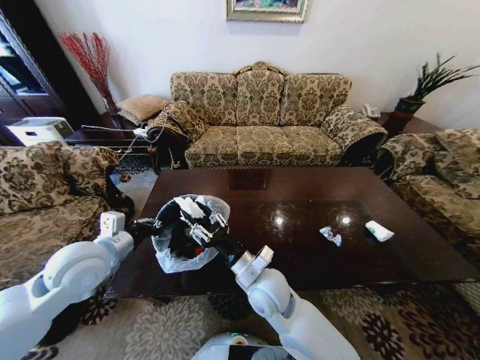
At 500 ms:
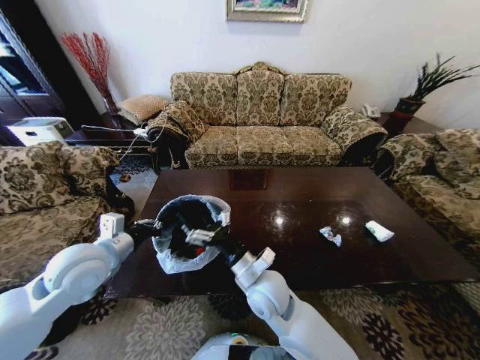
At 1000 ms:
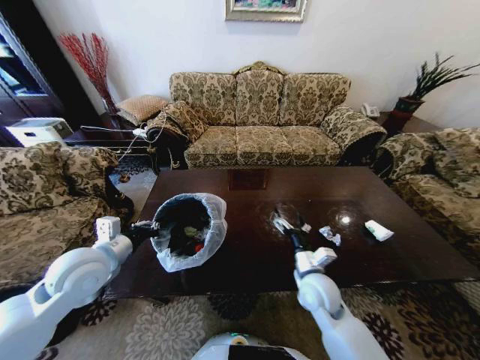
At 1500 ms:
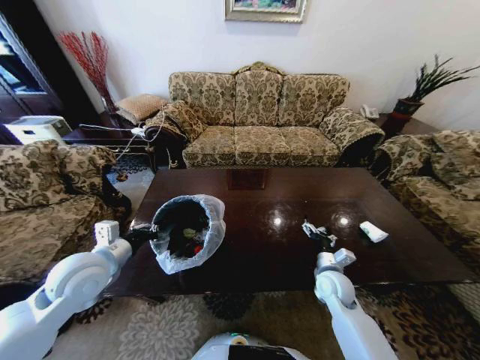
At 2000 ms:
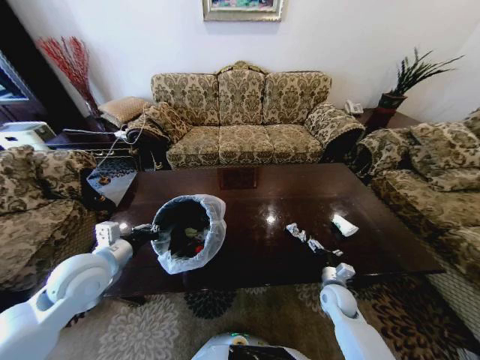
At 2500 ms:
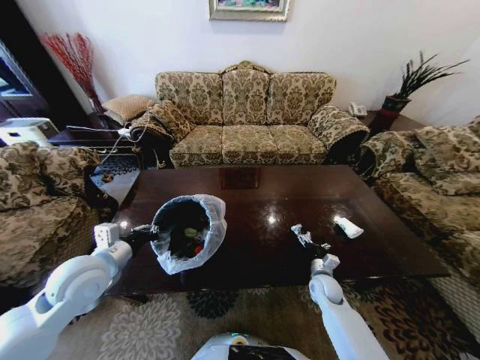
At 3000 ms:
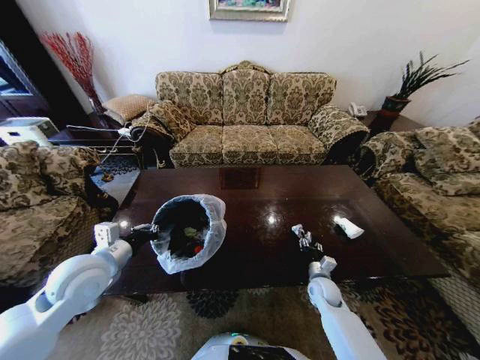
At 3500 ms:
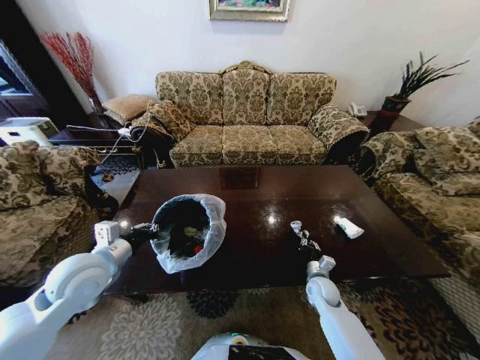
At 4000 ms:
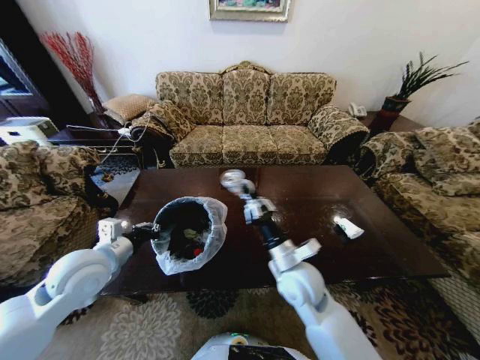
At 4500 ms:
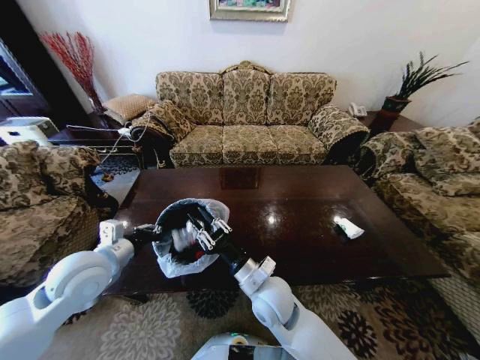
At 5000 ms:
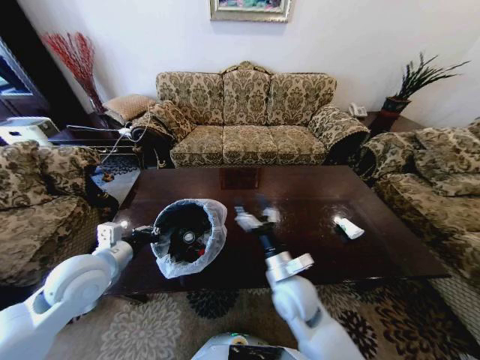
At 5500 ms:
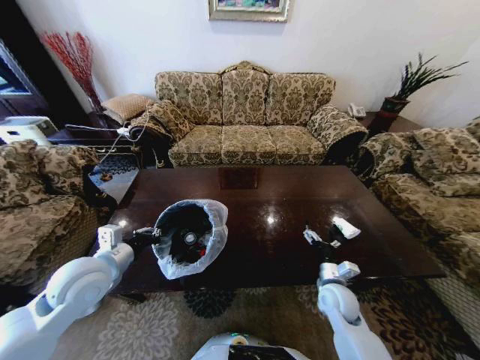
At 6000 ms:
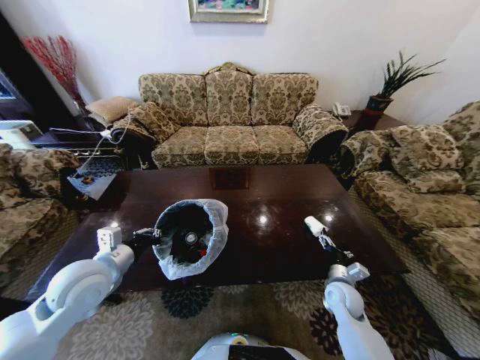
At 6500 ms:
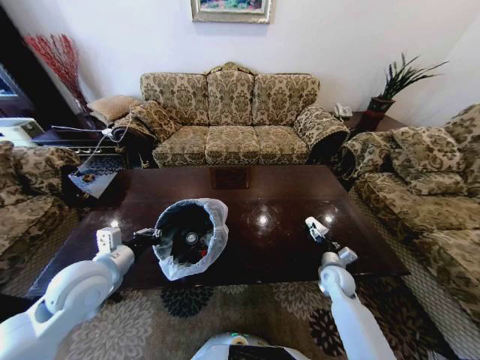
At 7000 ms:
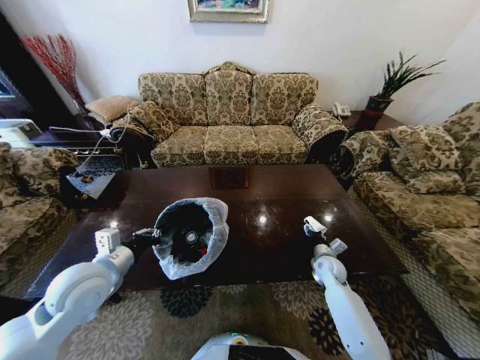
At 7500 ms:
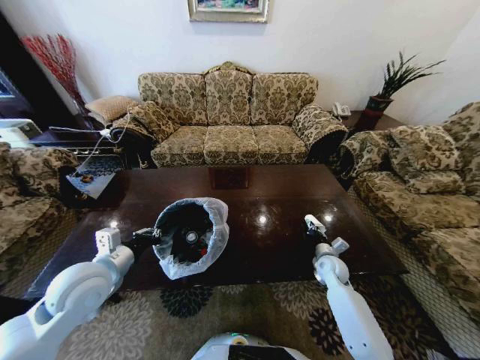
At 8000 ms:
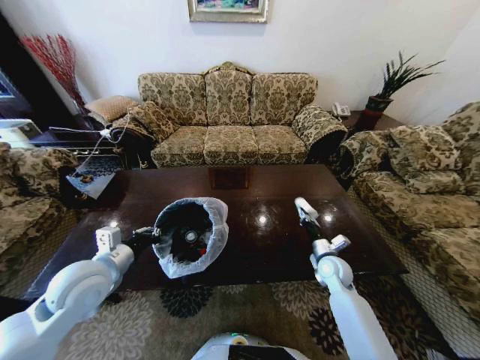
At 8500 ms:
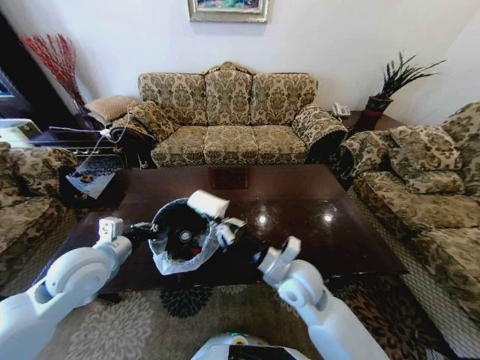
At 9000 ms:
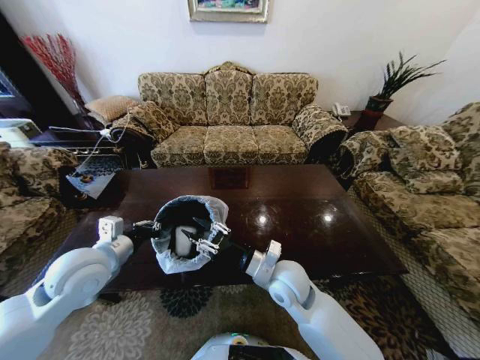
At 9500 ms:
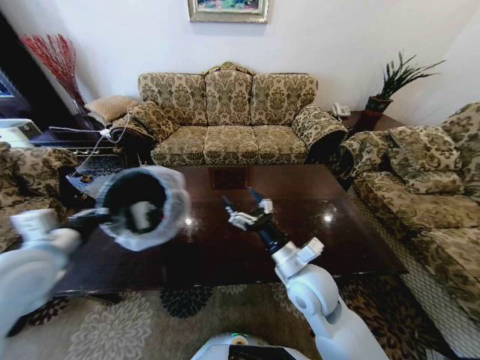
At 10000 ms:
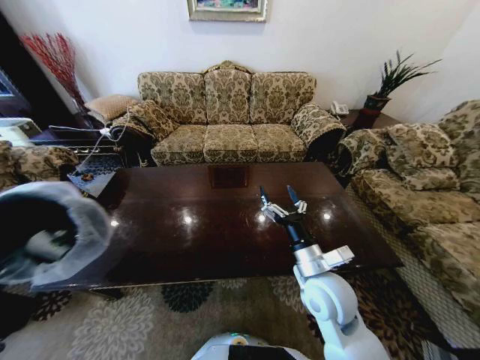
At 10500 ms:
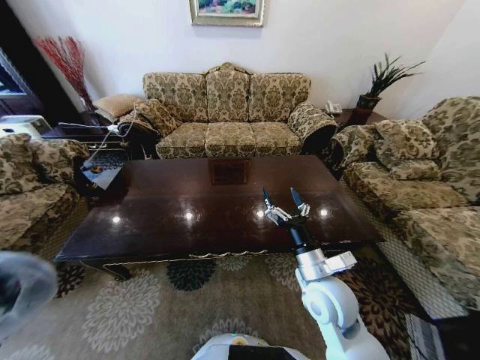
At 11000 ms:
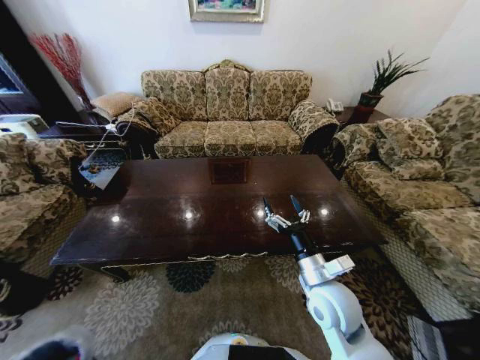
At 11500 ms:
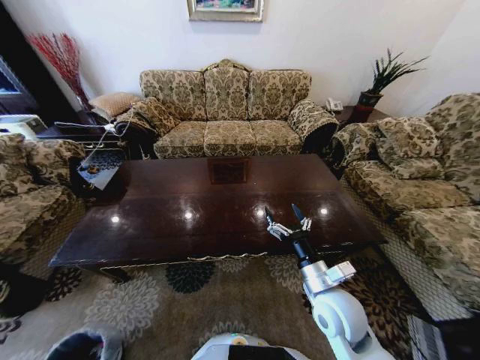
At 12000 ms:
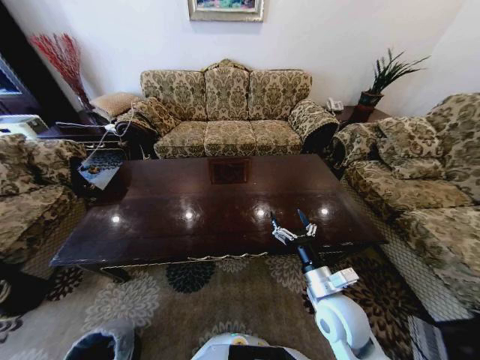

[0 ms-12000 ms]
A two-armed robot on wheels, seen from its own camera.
Task of the whole recording: Move to the front of the table and place the trash on the table into the trash bin.
0 ms to 2000 ms: The right gripper travels to the right and downward by some 30 cm, and opens its fingers.
2000 ms to 4000 ms: The right gripper travels upward and to the left by some 30 cm, and closes its fingers.
4000 ms to 6000 ms: The right gripper travels to the right and downward by some 25 cm, and opens up.
6000 ms to 8000 ms: The right gripper shifts about 10 cm forward and upward, and closes up.
8000 ms to 10000 ms: The left gripper travels to the left and backward by approximately 20 cm. The right gripper moves upward, to the left and backward, roughly 20 cm, and opens up.
10000 ms to 12000 ms: The left gripper goes some 50 cm downward; the right gripper shifts roughly 5 cm downward.

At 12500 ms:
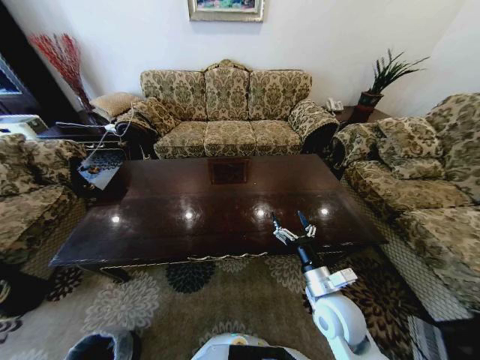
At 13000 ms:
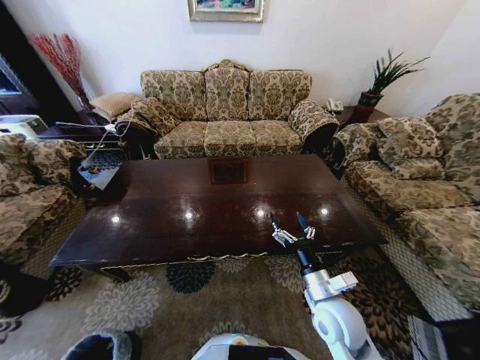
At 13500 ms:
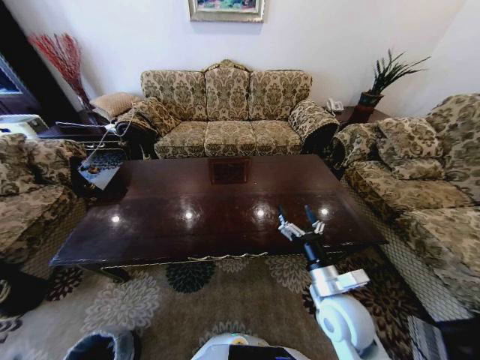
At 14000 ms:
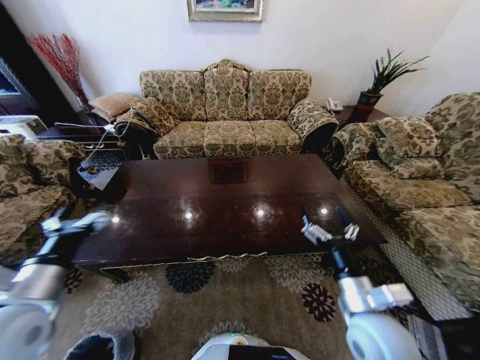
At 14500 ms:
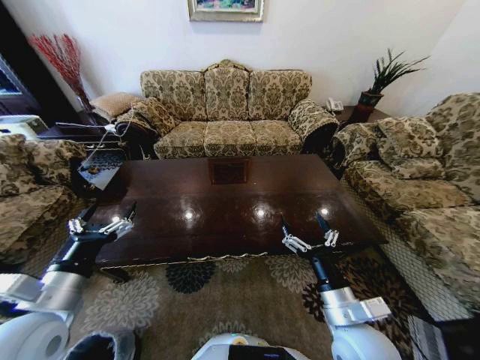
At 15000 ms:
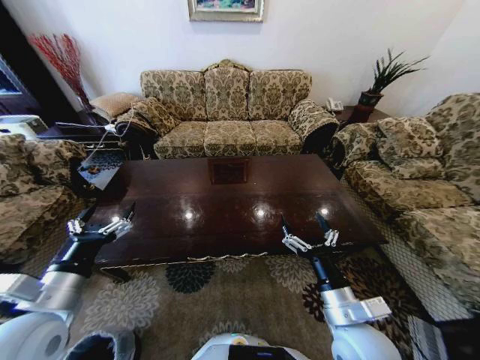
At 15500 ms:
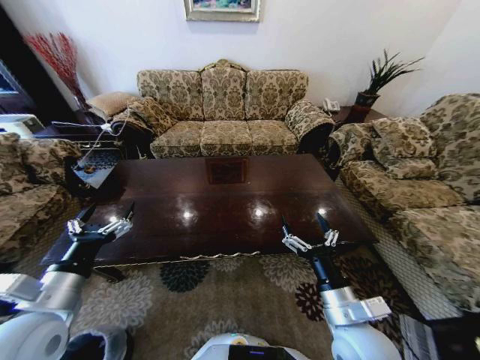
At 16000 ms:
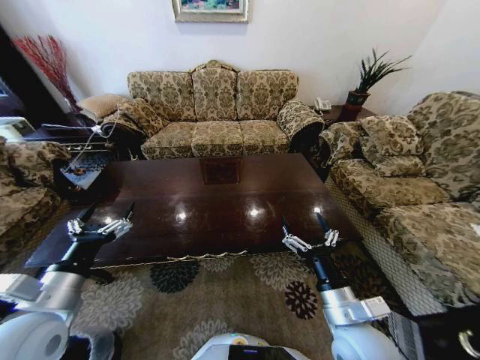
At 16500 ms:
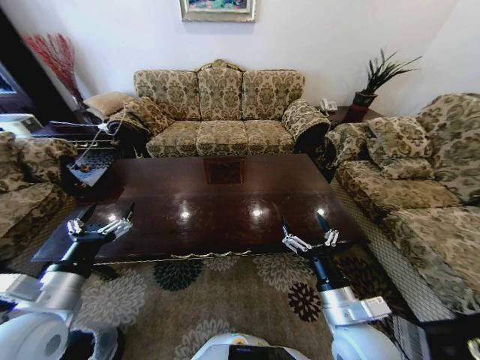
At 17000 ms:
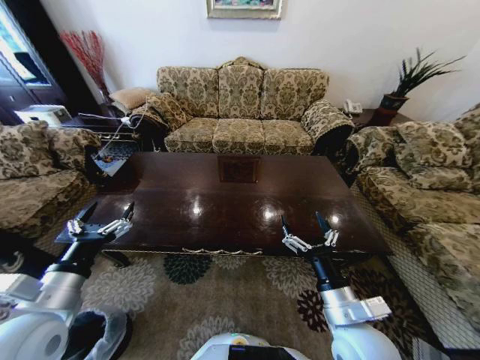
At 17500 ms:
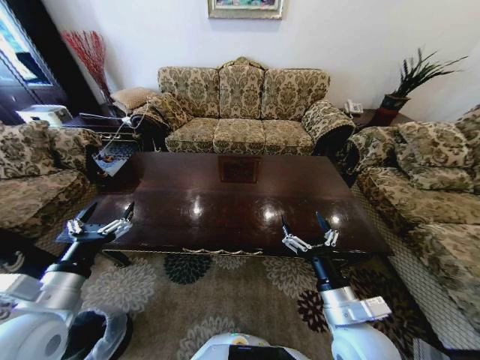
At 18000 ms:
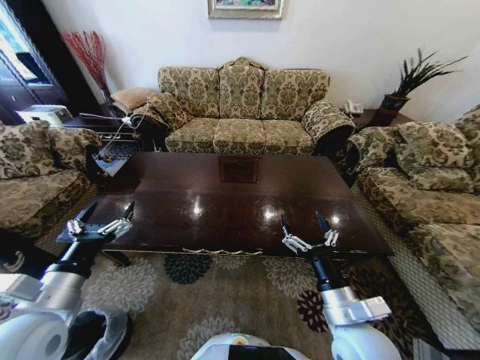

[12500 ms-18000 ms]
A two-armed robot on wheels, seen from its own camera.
Task of the whole recording: Move to the front of the table and place the trash on the table into the trash bin.
12500 ms to 14500 ms: The right gripper moves backward and upward, approximately 10 cm. Meanwhile the left gripper shifts some 40 cm upward.
